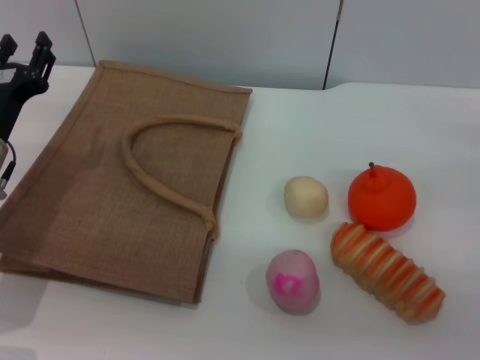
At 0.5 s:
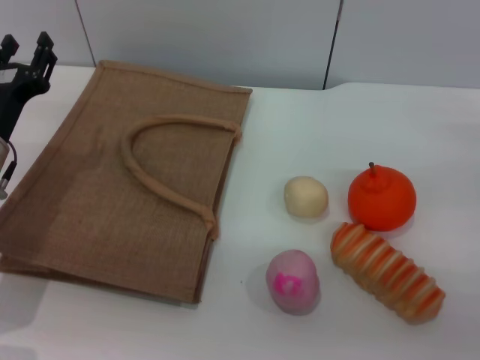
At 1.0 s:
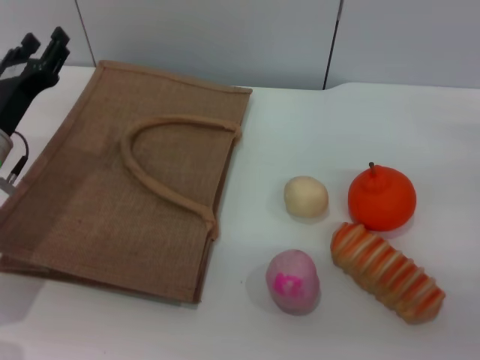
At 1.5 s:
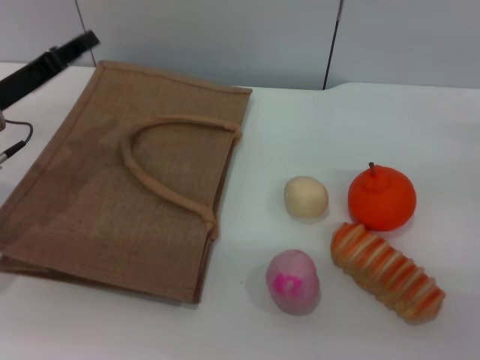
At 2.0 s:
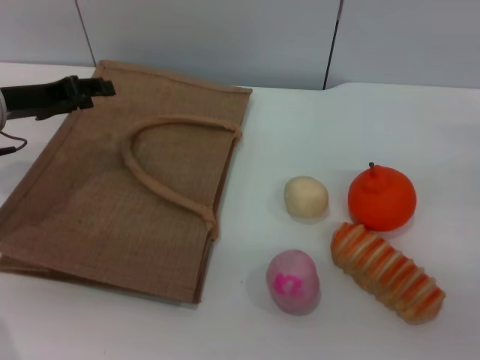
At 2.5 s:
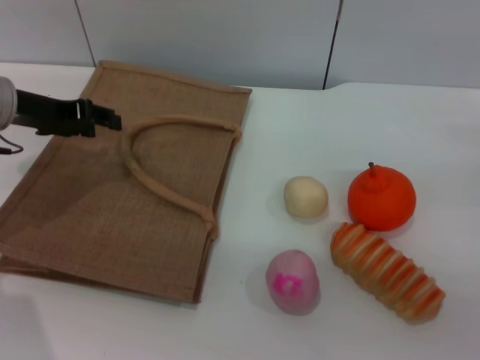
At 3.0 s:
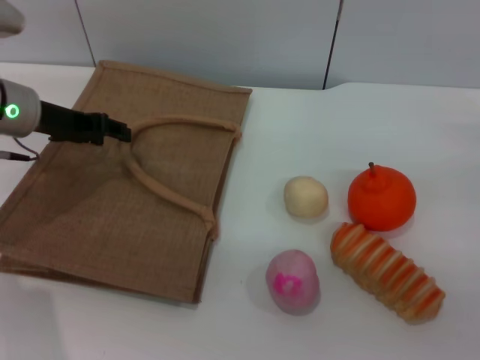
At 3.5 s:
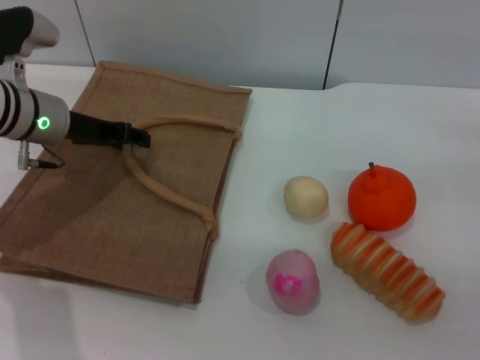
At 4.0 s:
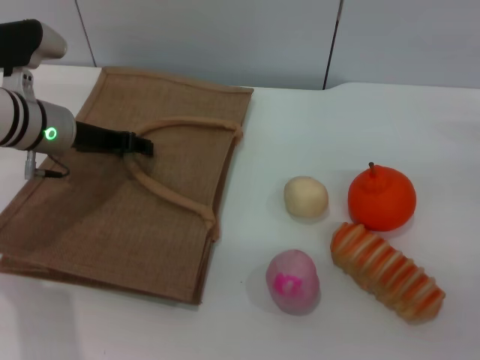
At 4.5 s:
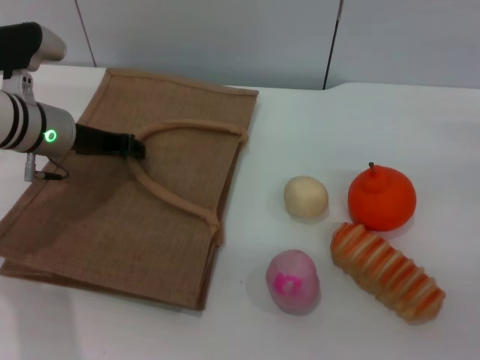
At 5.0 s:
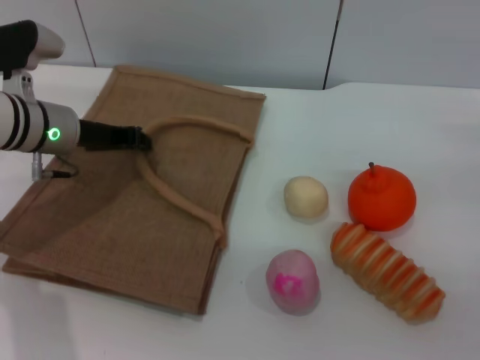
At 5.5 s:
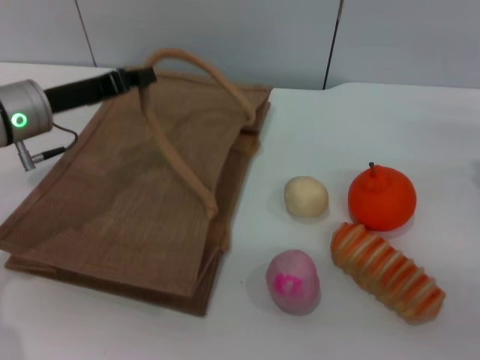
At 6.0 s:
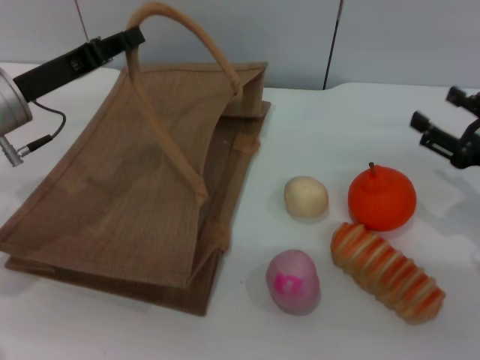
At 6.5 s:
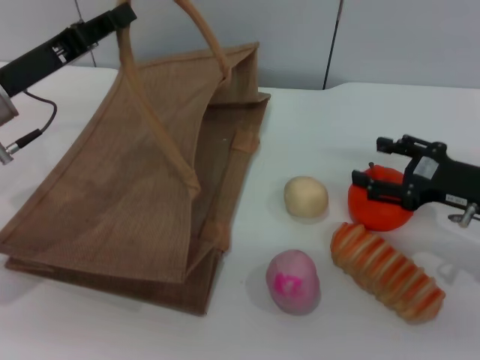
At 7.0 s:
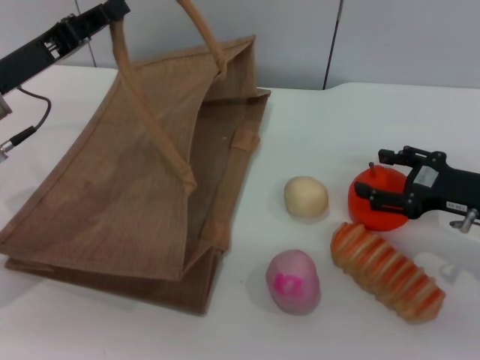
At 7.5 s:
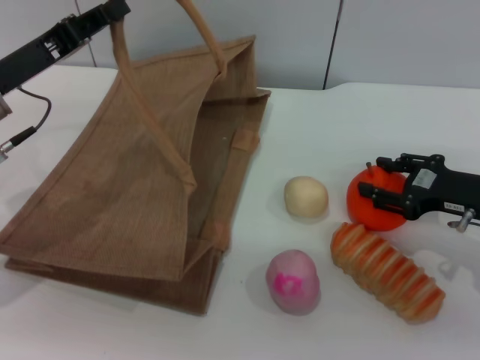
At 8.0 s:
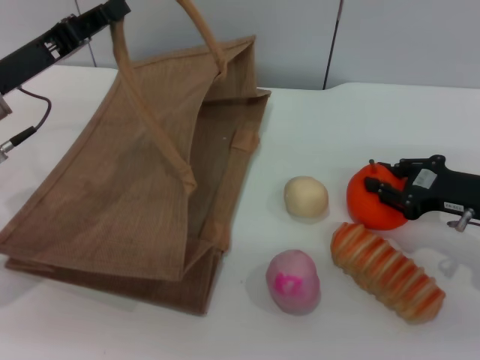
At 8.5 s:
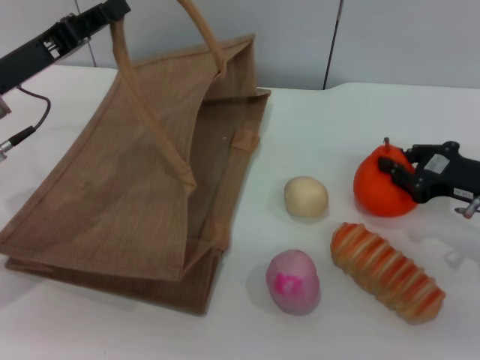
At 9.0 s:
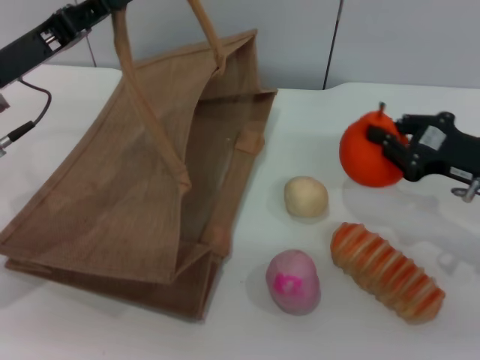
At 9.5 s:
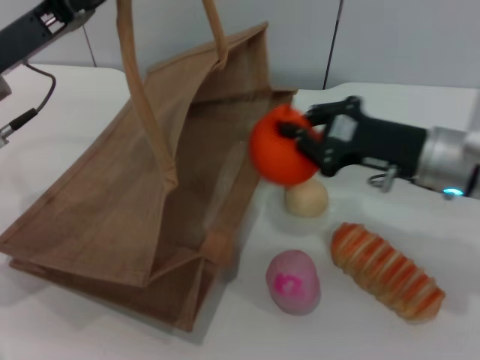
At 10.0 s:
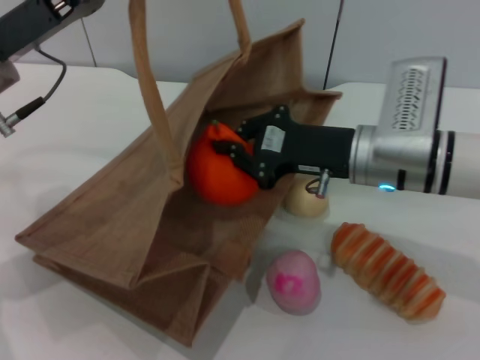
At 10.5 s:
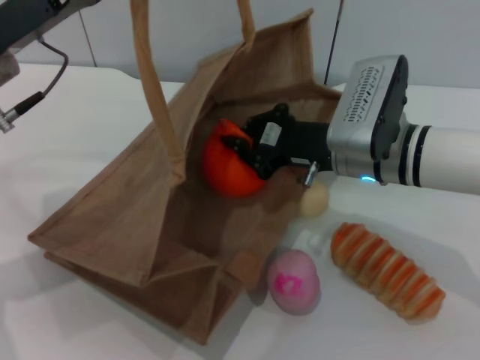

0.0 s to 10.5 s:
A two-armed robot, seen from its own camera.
Task of the whole recording: pick up the orange from the table and place it in the brown handbag.
Step, 0.0 to 5.5 s: Lift the woven bag with the left gripper to open it.
Step, 6.0 to 8.5 s: Pick up the orange with the right gripper.
0.0 to 2.0 s: The left gripper shifts roughly 10 cm upward and forward.
2.0 to 4.0 s: The left gripper shifts roughly 5 cm to the right.
4.0 to 6.5 s: The right gripper moves to the left, approximately 5 cm. Meanwhile the left gripper goes roughly 5 cm backward, and closes its fingers.
6.5 to 8.5 s: The right gripper closes.
8.5 to 10.5 s: The right gripper shifts roughly 15 cm to the left. Meanwhile the left gripper shifts by approximately 5 cm.

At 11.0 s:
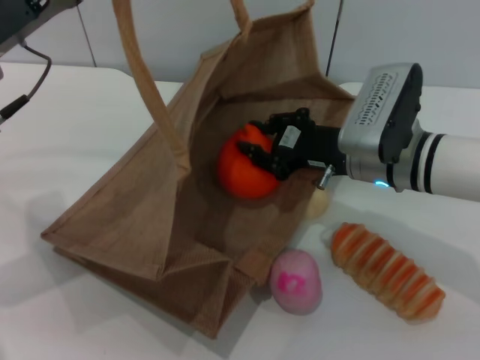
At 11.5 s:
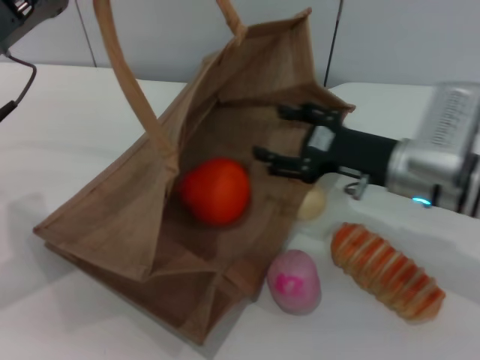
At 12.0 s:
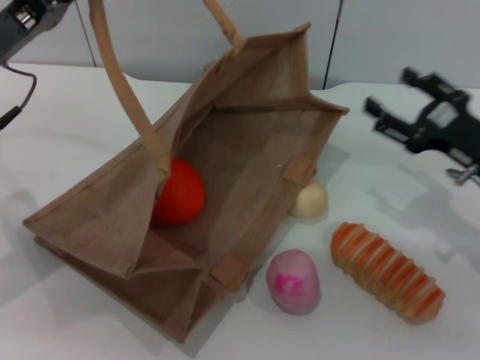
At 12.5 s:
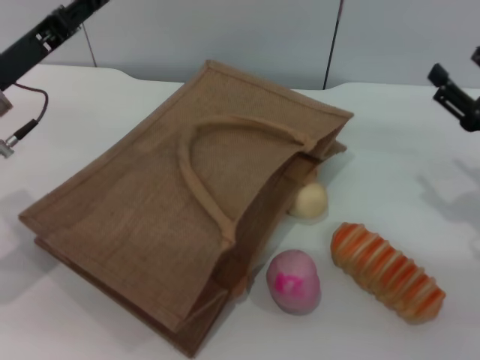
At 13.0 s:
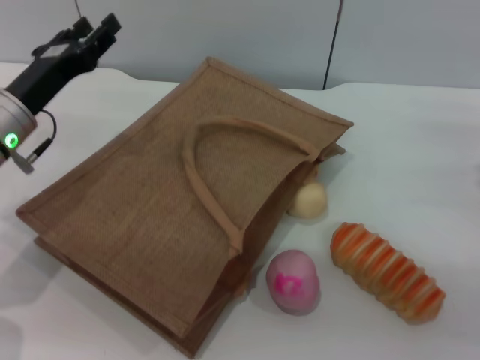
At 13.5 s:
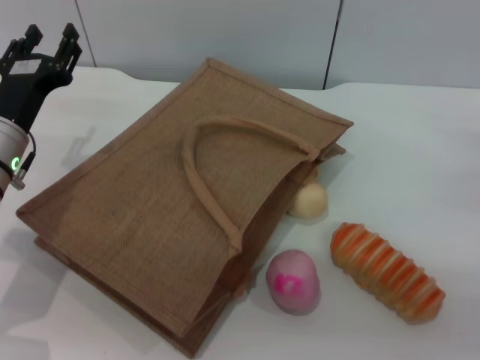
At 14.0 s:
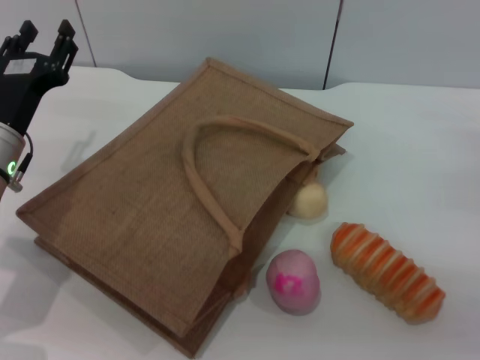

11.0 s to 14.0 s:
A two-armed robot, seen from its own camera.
Task of the whole recording: pick up the orange from the table and place it in the brown handbag.
Step, 12.0 to 12.5 s: Lower the woven bag with the left gripper to close it.
11.0 to 12.5 s: The left gripper changes place by some 5 cm, and opens its fingers; the right gripper travels to the right by approximately 15 cm, and opens.
12.5 to 14.0 s: The left gripper heads downward, covering some 5 cm, and opens up, while the right gripper travels to the right by roughly 5 cm.

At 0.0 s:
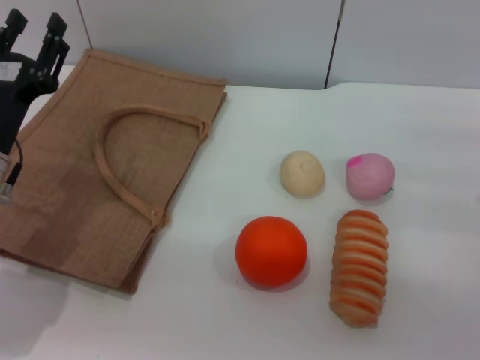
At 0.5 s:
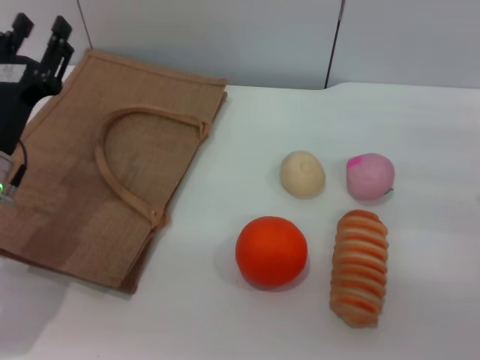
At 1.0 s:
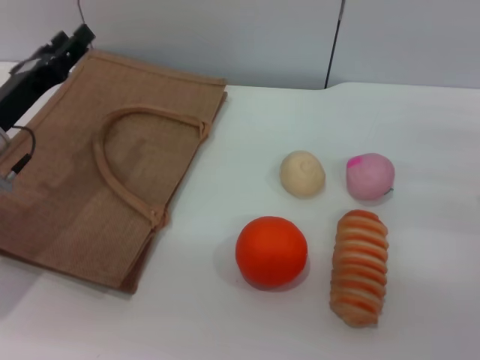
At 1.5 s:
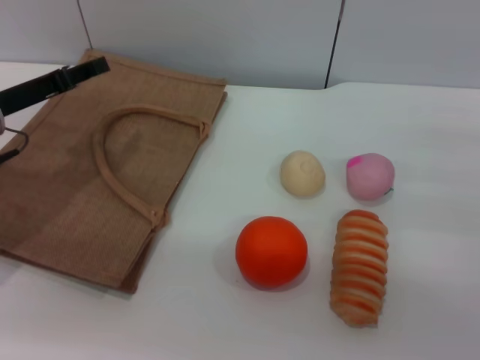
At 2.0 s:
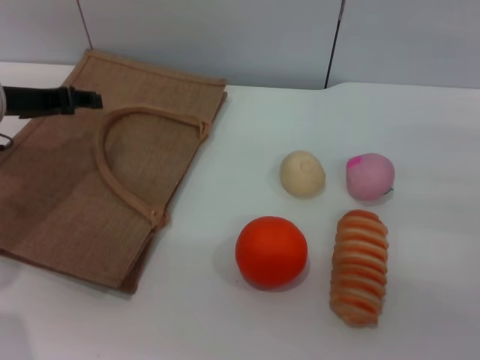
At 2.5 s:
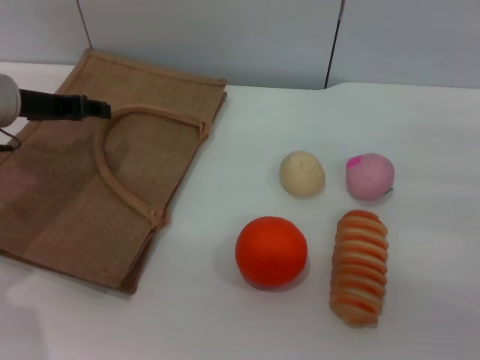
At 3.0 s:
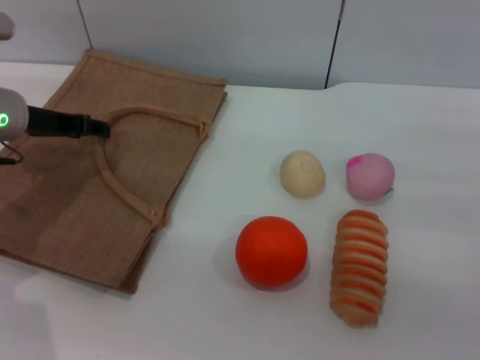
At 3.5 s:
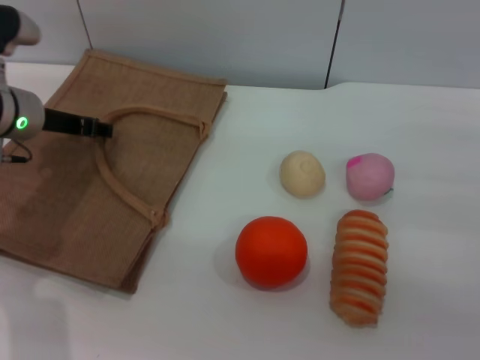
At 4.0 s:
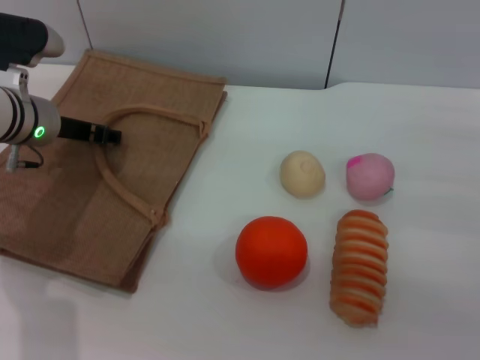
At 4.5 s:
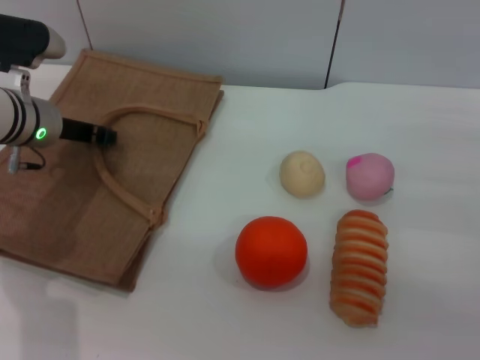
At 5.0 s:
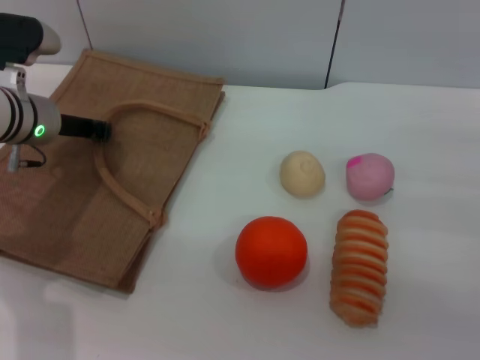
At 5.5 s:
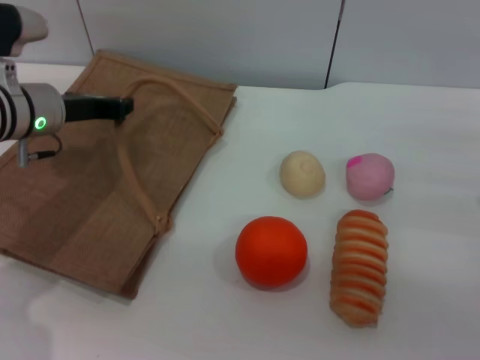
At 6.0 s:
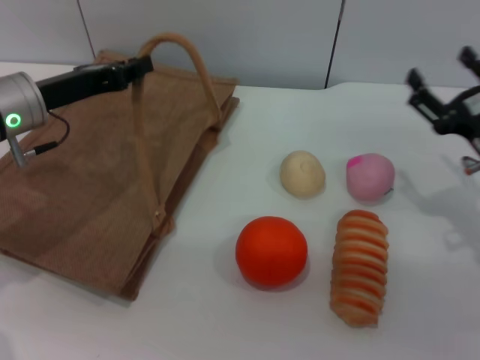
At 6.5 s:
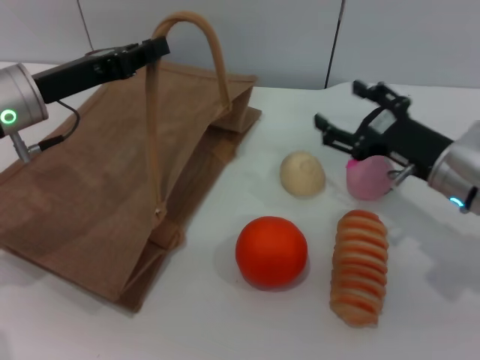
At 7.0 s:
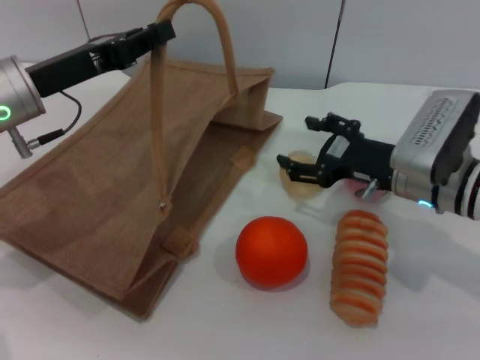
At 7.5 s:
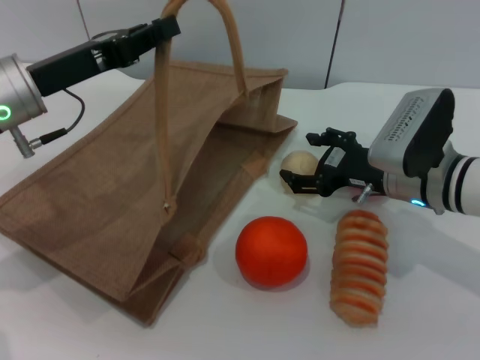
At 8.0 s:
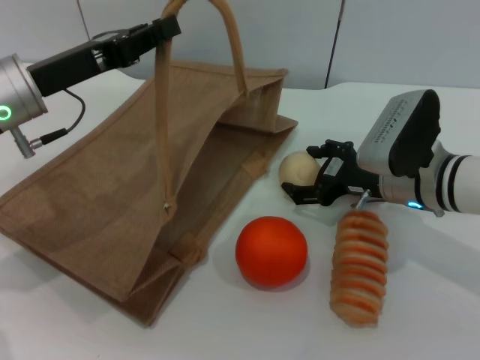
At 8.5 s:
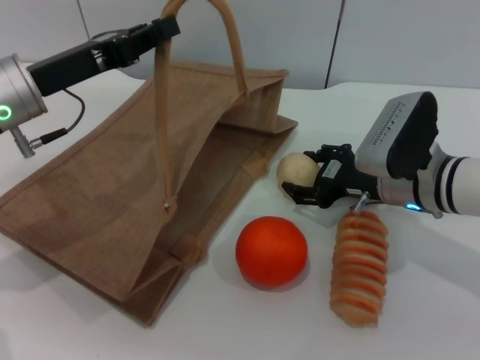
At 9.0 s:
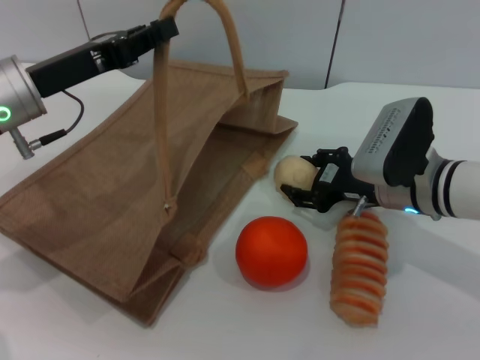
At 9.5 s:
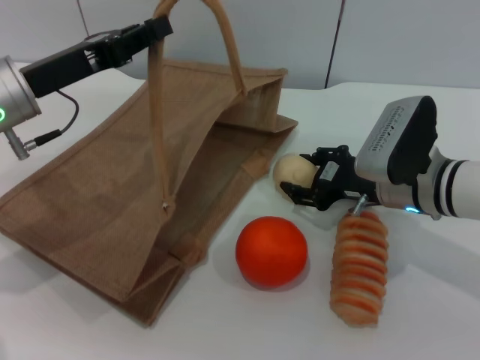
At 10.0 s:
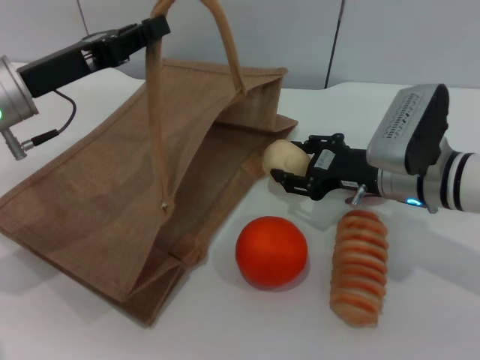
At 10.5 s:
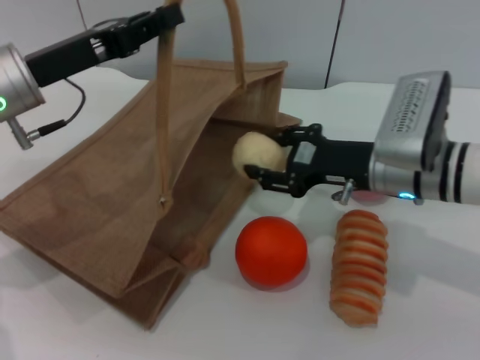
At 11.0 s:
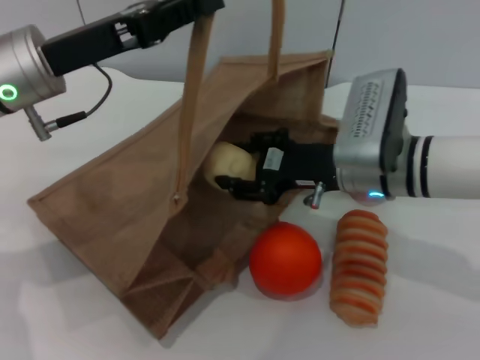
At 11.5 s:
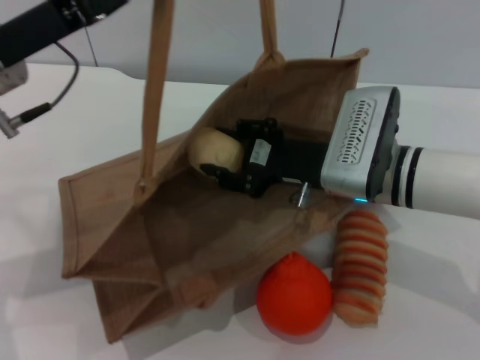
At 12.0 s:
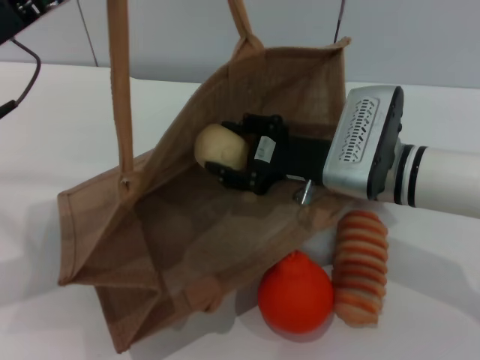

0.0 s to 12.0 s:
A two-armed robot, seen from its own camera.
Task of the whole recording: pick up the egg yolk pastry from the table and place it in the brown handbag.
Step, 0.0 to 5.5 s: Lift the woven bag with the left gripper to open it.
Step, 6.0 to 10.0 s: Pick up the egg yolk pastry with the right gripper.
0.0 to 2.0 s: The left gripper shifts roughly 10 cm forward and upward.
2.0 to 4.0 s: The left gripper moves about 5 cm.
4.0 to 6.0 s: The right gripper ends up about 5 cm from where it was, while the left gripper closes up.
6.0 to 8.0 s: The right gripper travels to the left and forward by roughly 10 cm.
8.0 to 10.0 s: The right gripper closes up.
10.0 to 12.0 s: The left gripper moves about 5 cm, while the right gripper moves to the left, about 5 cm.
